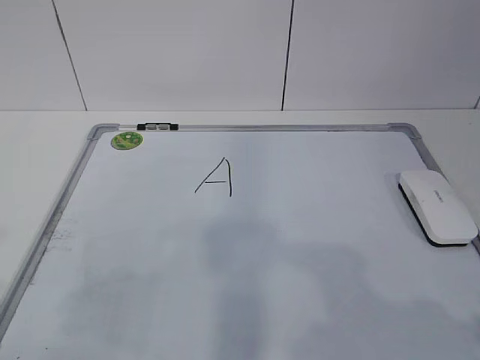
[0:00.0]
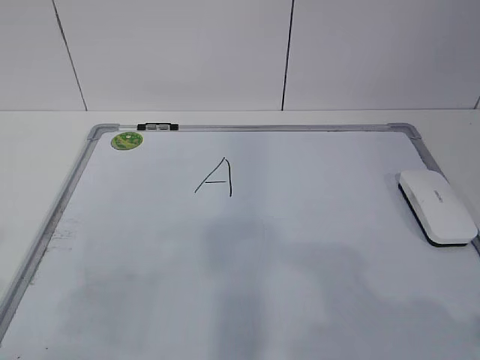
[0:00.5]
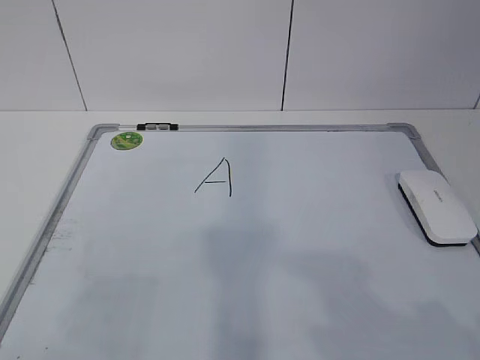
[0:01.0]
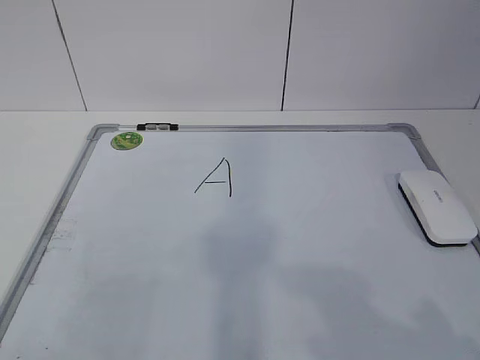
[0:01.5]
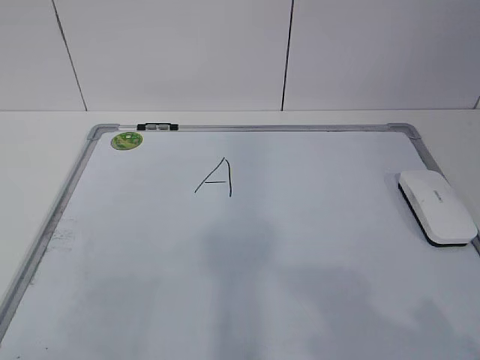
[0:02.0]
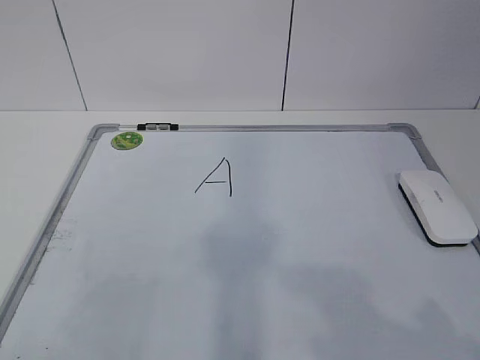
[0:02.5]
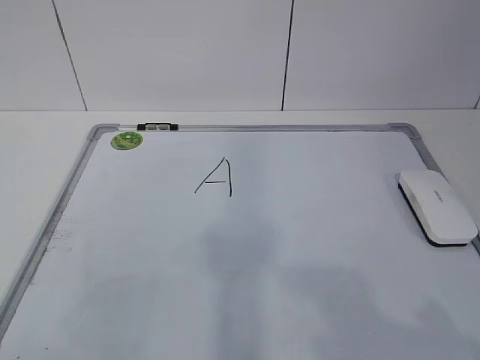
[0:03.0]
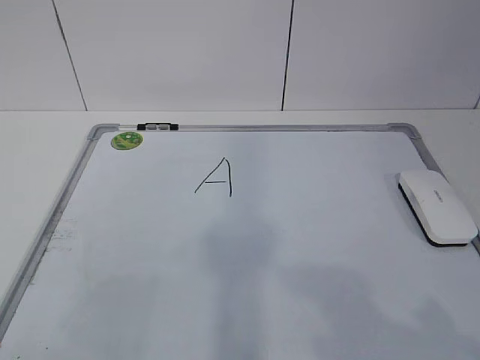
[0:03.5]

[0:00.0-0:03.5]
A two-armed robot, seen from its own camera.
Task of the whole recording: pick up the eraser on the blackboard and erase the letter "a".
0:02.0 to 0:03.5: Both grippers stay about where they are.
